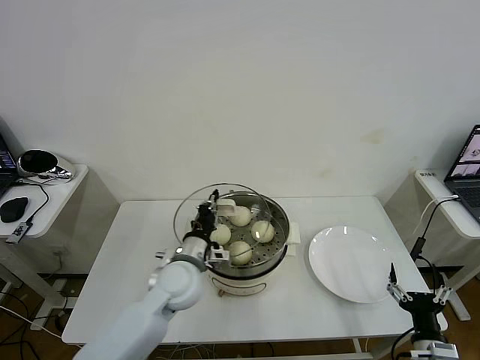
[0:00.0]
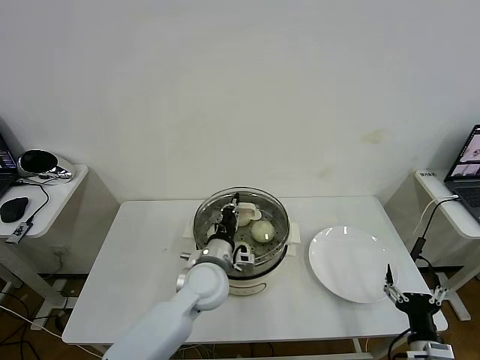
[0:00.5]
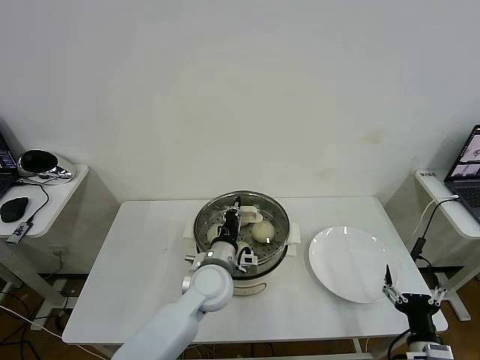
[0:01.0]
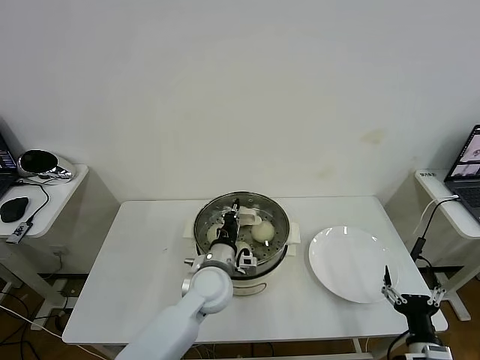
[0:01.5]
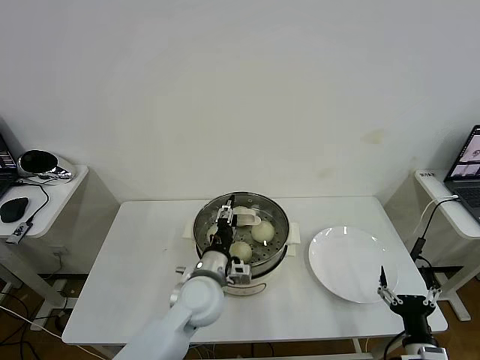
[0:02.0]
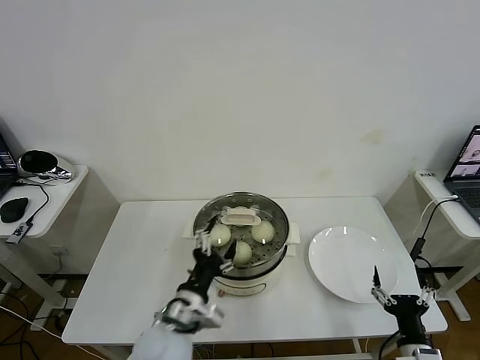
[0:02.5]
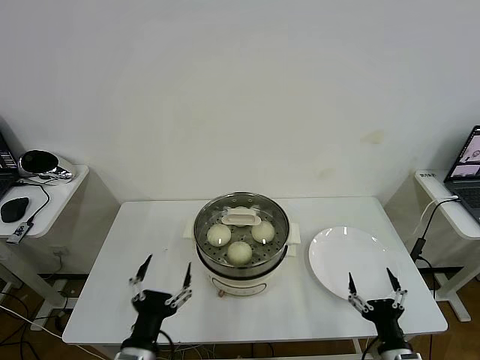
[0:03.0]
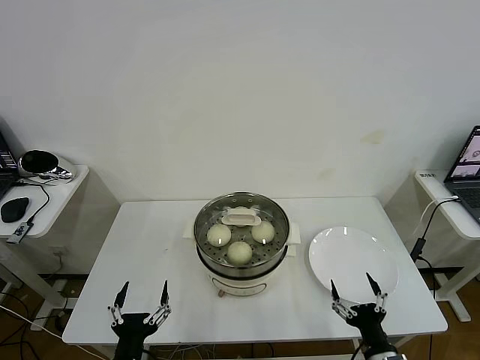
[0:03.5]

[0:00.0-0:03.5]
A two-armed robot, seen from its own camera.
Task of the whole recording: take steamed baozi put them in steamer then cover it.
Step, 0:00.0 to 0:02.0: Place the pot lid on the steamer with left gripper.
0:00.0 to 0:02.0: The left gripper ends up approximately 5 cm from where it was, and opens.
0:02.0 to 0:03.5: The left gripper shifts about 25 cm backward and to the left, and opens, while the right gripper moves to the left, roughly 5 cm.
